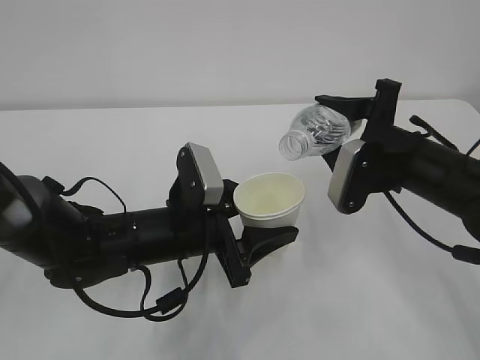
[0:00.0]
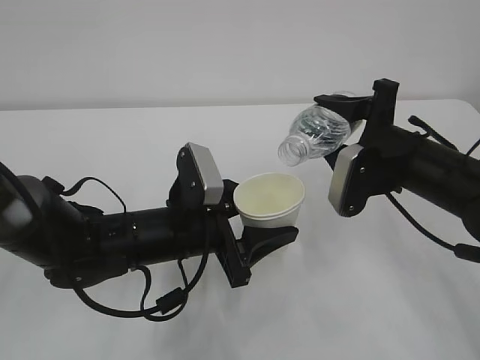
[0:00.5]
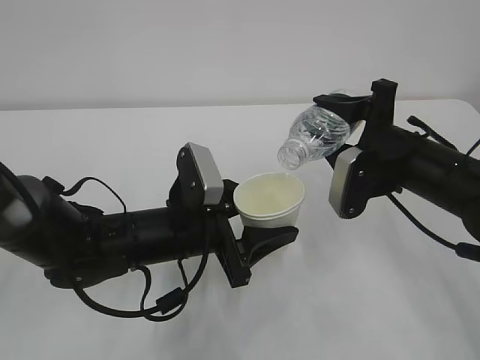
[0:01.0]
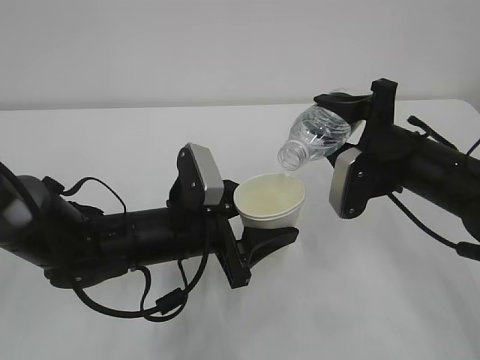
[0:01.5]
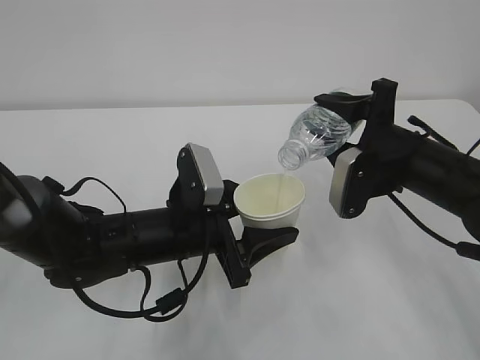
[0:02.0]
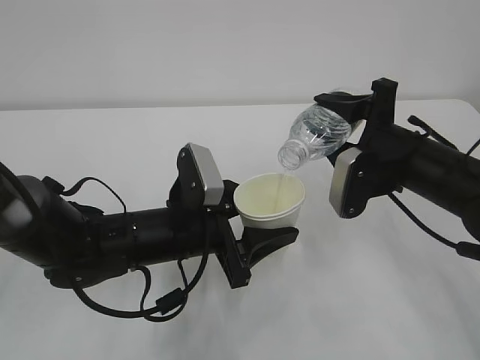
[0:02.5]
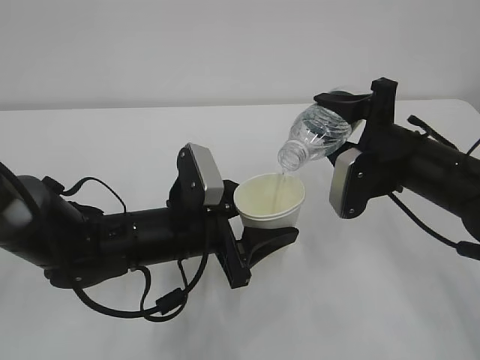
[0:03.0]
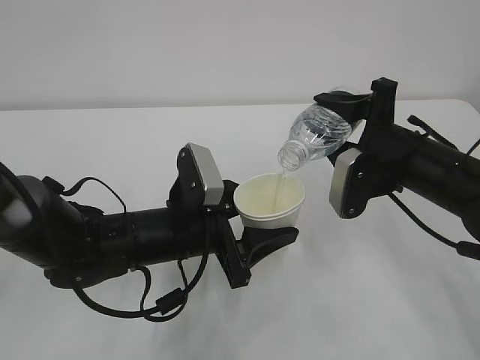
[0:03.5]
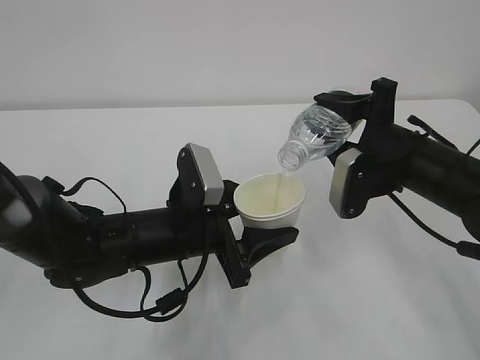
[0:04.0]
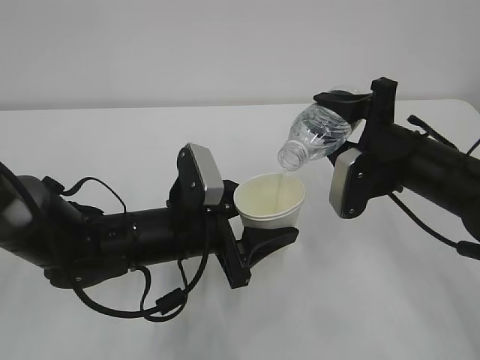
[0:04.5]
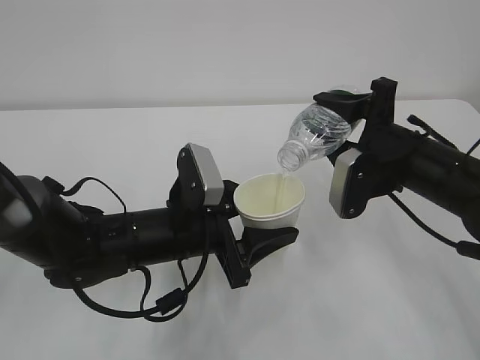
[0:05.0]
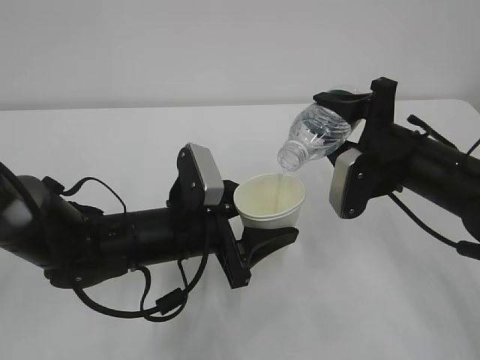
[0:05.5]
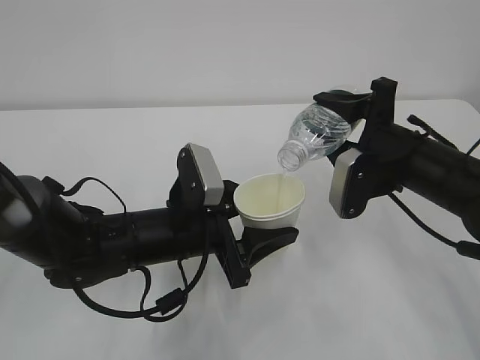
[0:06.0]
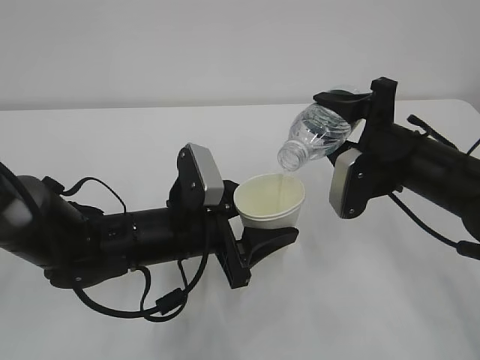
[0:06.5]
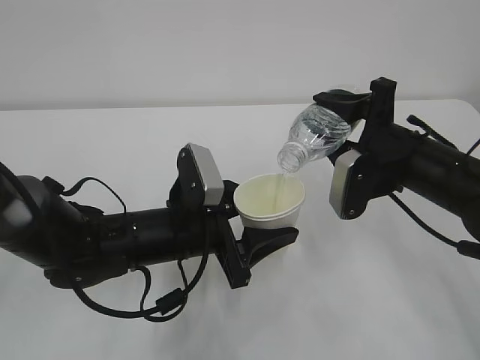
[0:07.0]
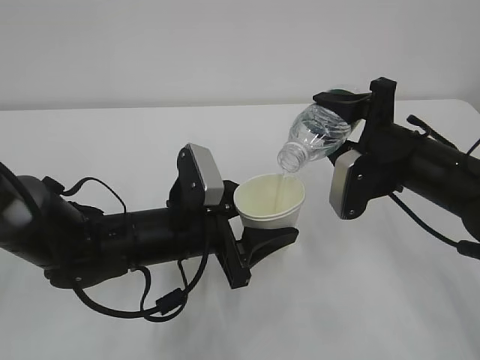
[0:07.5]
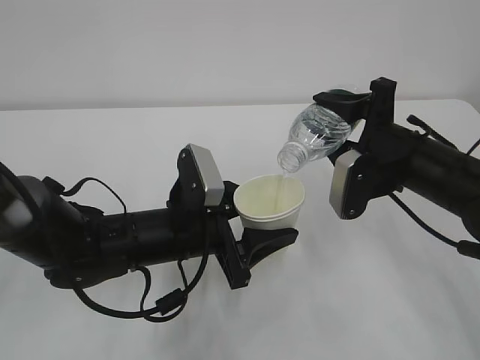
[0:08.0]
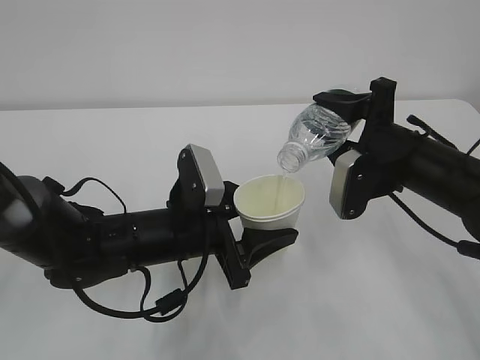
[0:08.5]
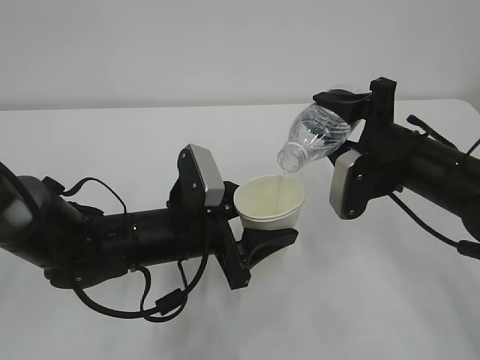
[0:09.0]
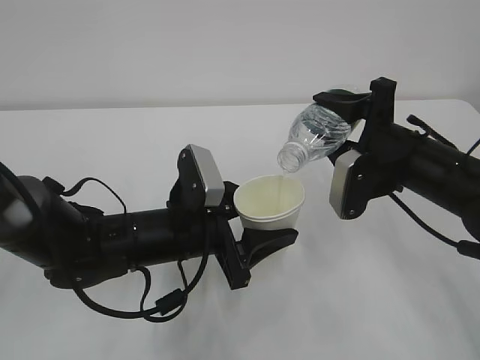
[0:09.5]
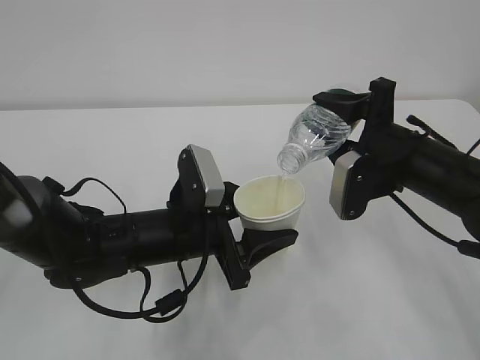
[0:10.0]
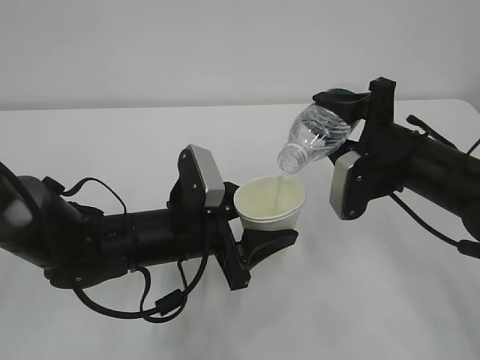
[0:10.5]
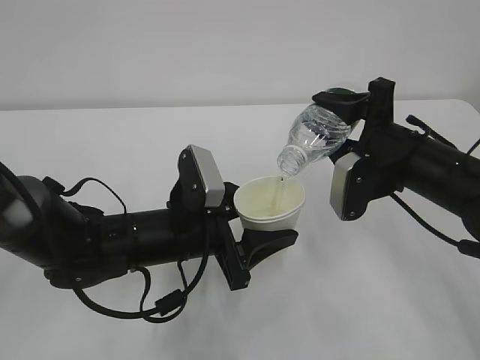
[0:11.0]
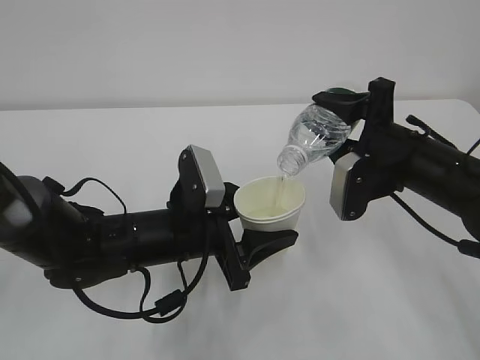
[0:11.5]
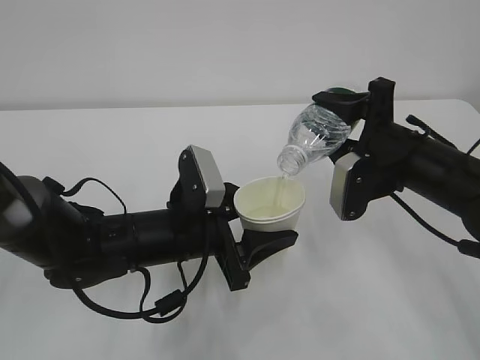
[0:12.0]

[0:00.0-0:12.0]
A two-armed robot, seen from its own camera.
0:00.0 to 0:02.0: The grippers make only small movements.
0:02.0 to 0:10.0: Both grippers stay put.
0:10.0 to 0:12.0: Both grippers stay about where they are.

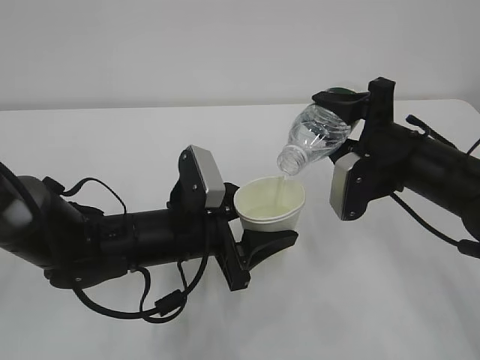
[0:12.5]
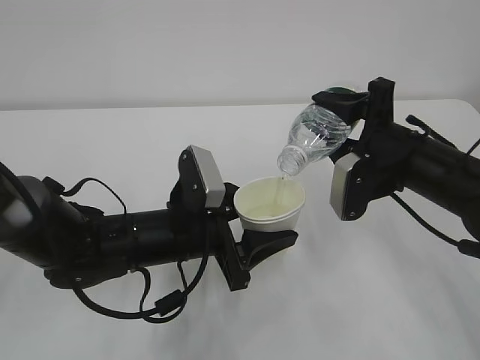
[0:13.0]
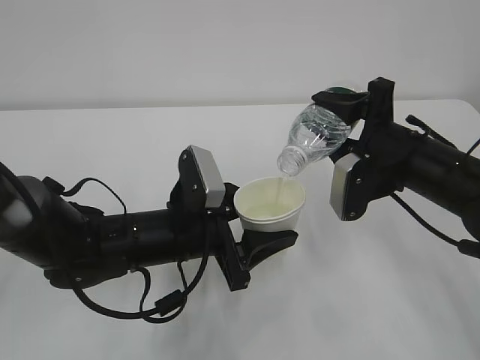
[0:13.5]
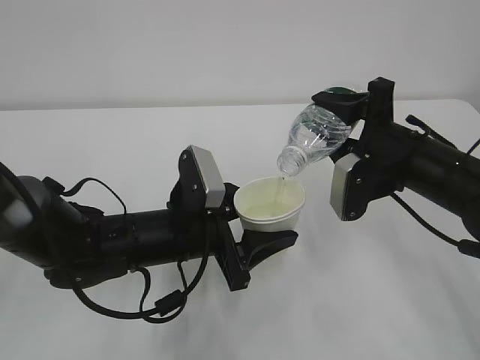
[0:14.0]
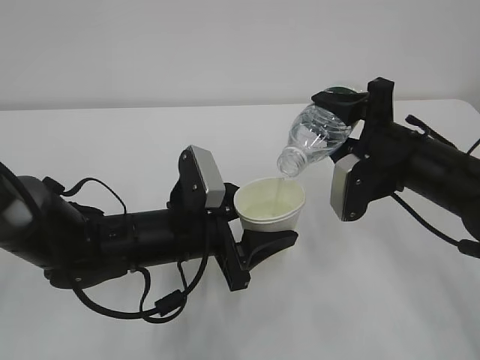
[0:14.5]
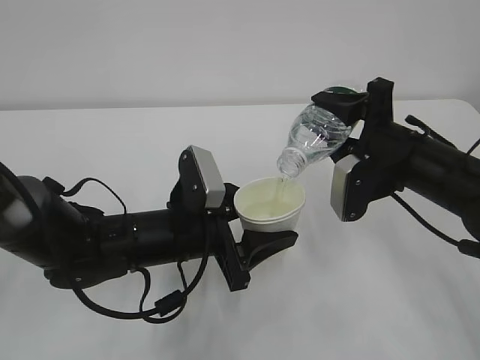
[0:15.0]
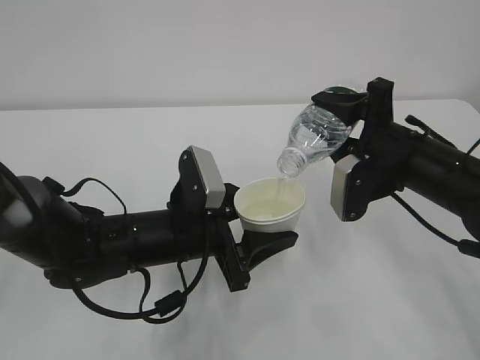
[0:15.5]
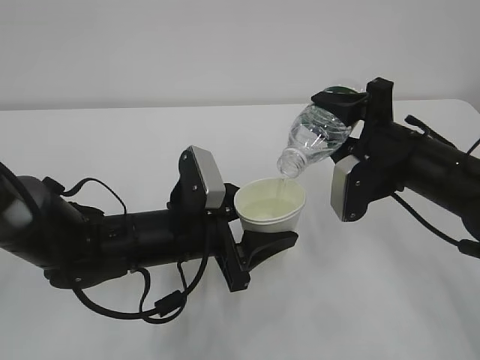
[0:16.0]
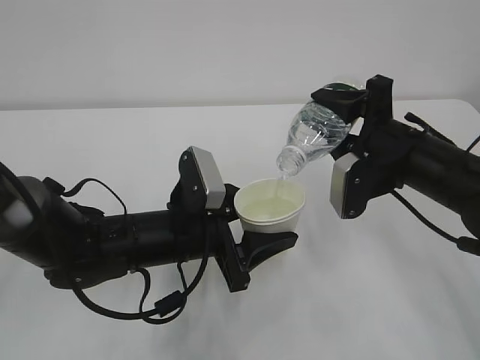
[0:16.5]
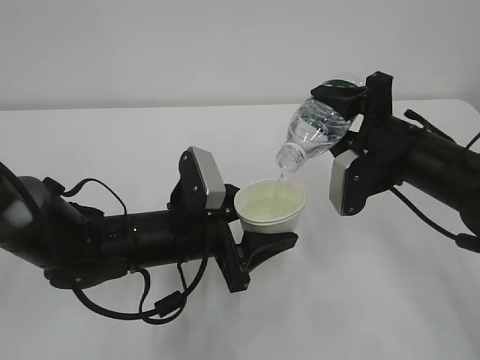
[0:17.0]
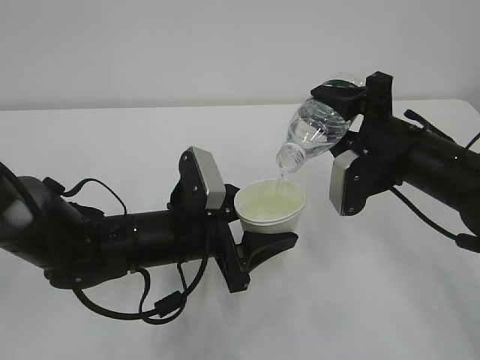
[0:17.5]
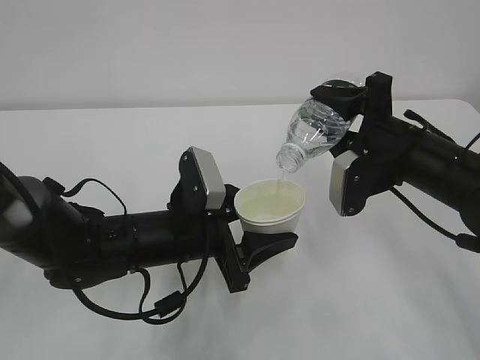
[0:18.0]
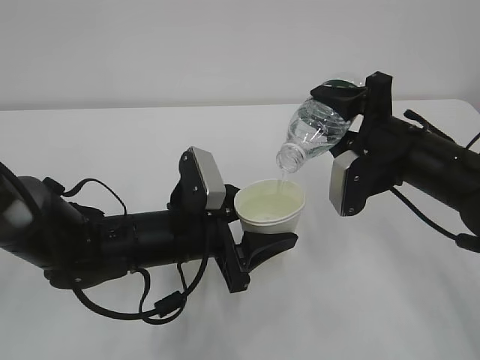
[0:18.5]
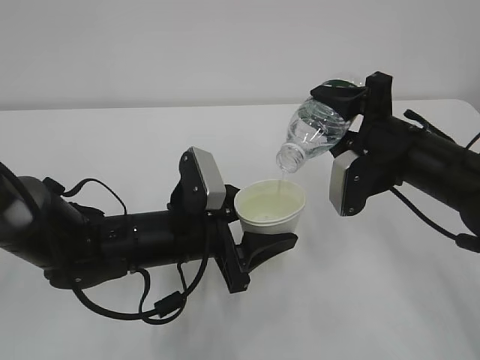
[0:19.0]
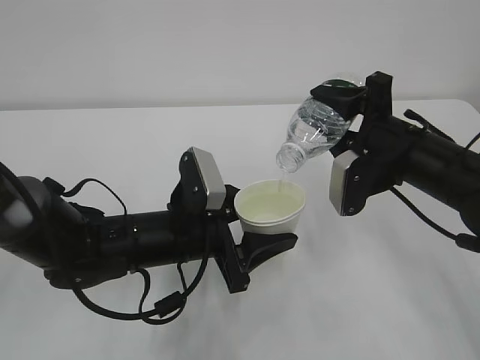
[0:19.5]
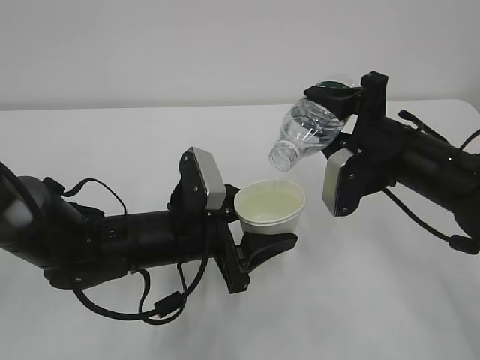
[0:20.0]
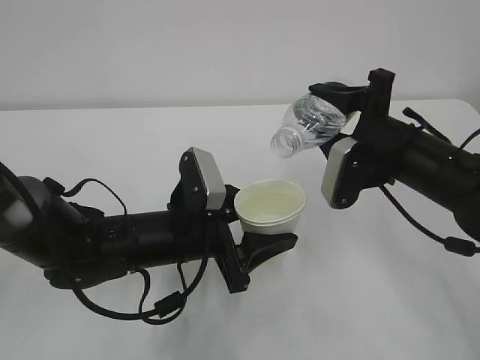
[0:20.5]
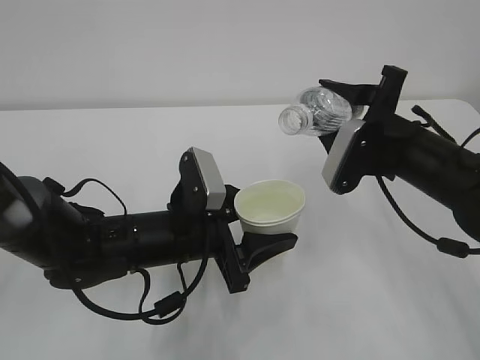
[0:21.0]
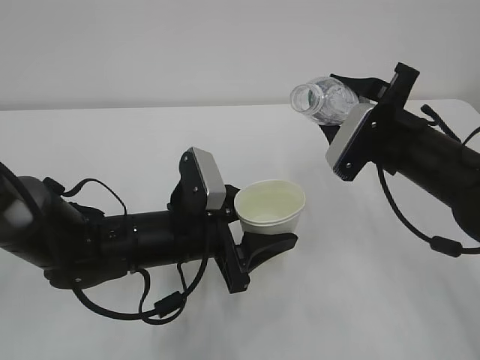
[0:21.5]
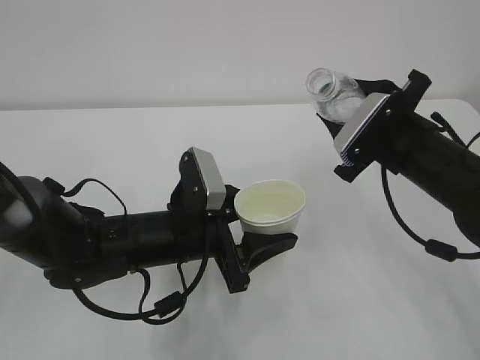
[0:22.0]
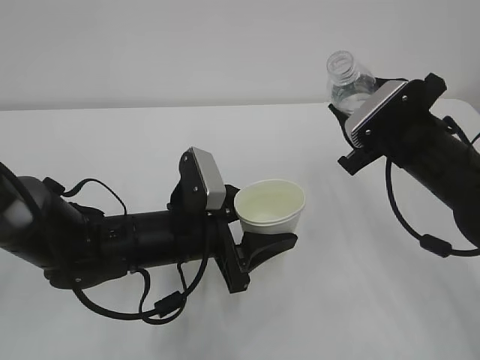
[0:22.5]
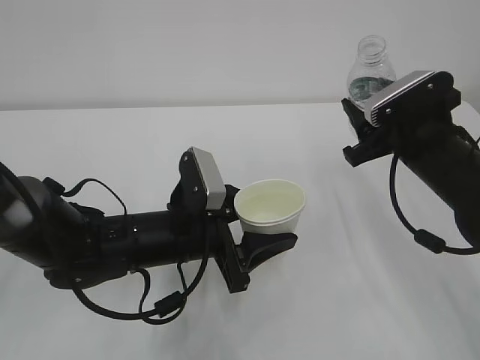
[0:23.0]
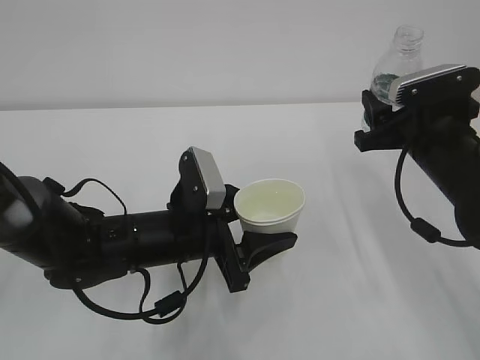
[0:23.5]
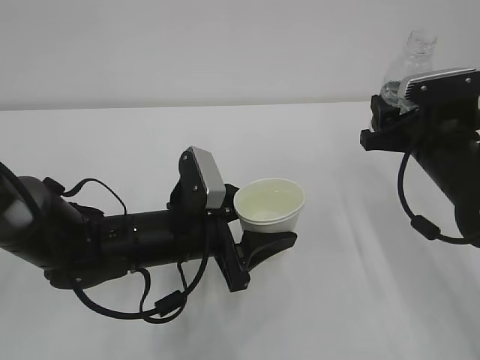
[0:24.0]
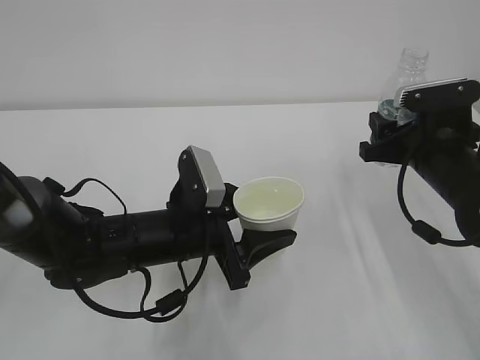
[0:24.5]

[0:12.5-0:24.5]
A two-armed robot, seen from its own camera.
0:12.5 to 0:18.5: Both grippers stay put.
0:18.5 to 0:20.5: There are only small adjustments of the grippers.

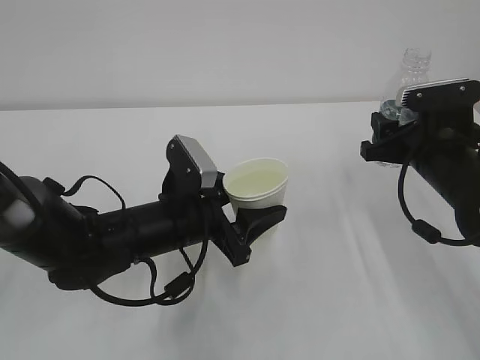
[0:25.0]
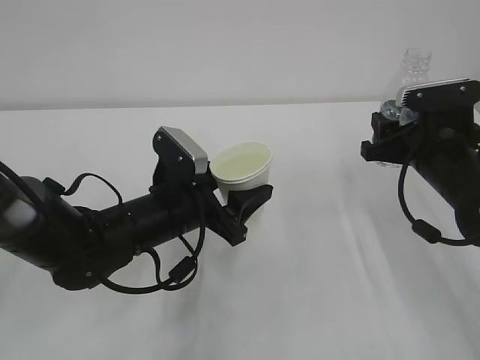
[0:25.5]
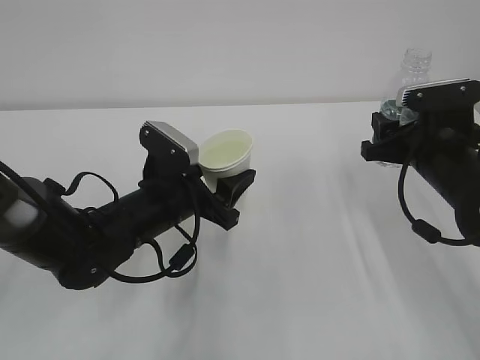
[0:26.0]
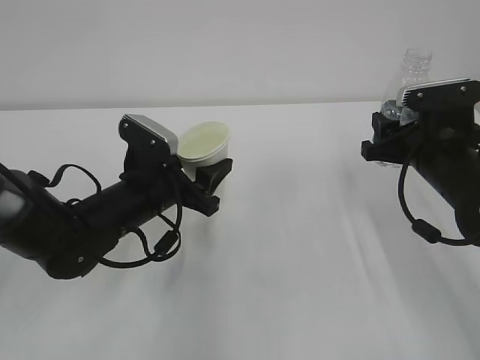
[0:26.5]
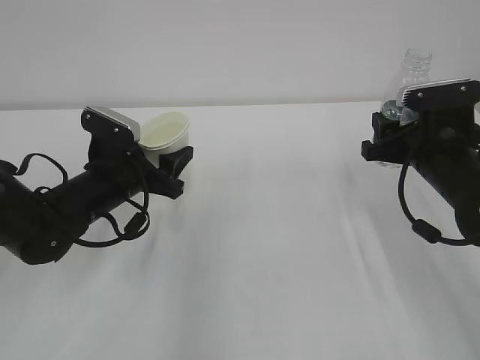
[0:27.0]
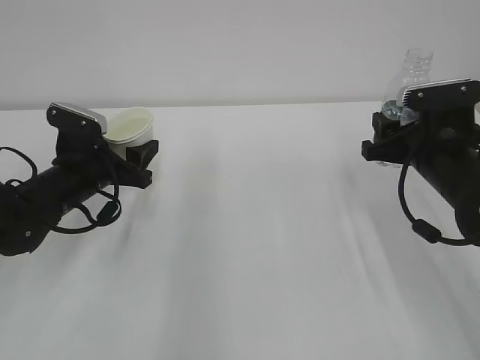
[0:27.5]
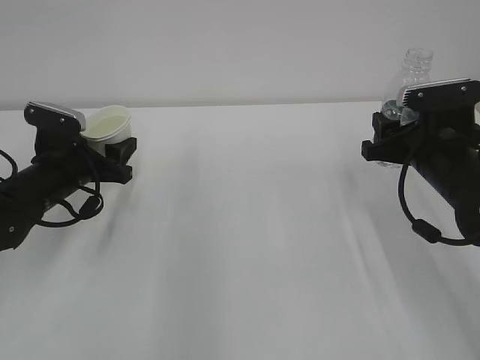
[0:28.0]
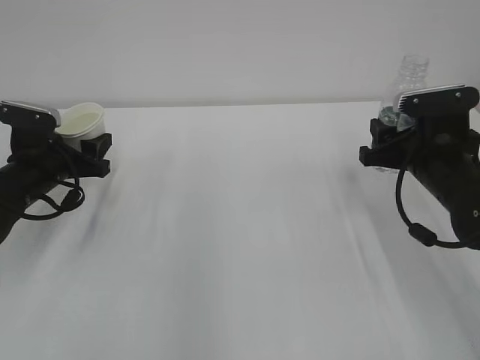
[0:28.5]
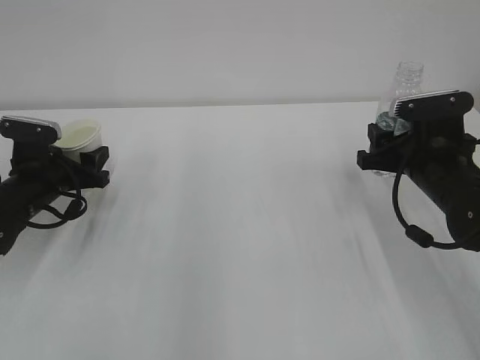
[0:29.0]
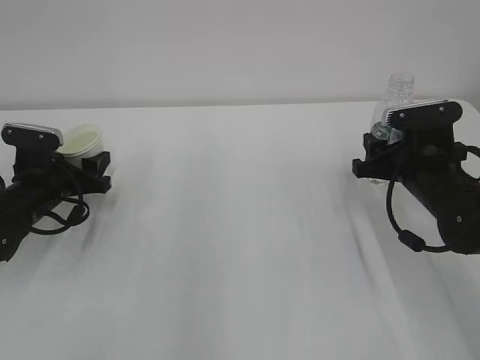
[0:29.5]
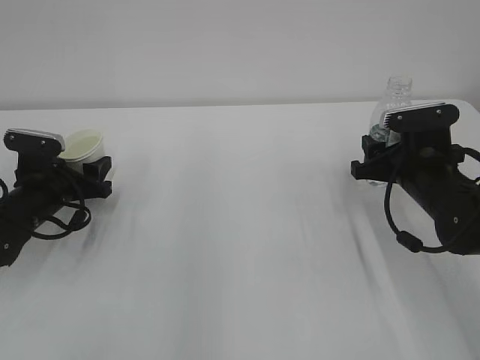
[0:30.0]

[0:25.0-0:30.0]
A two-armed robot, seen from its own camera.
0:25.0 to 0:27.5: The left gripper travels to the left and forward by roughly 15 cm.
0:27.5 to 0:30.0: The left gripper travels to the left by roughly 5 cm.
